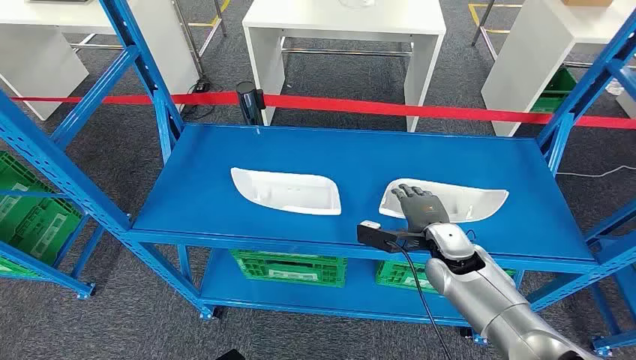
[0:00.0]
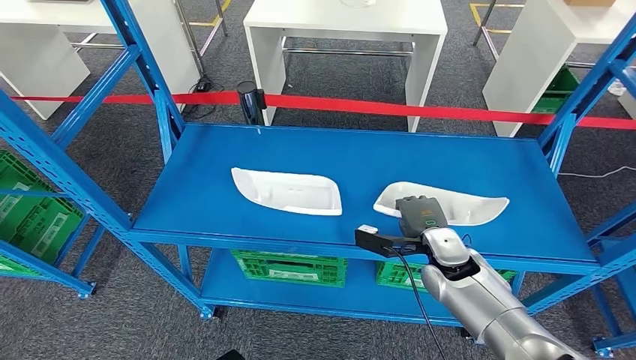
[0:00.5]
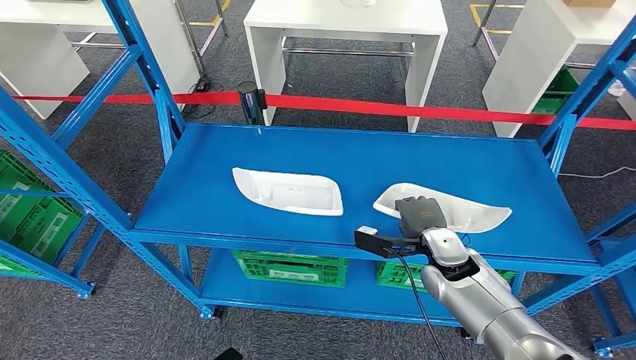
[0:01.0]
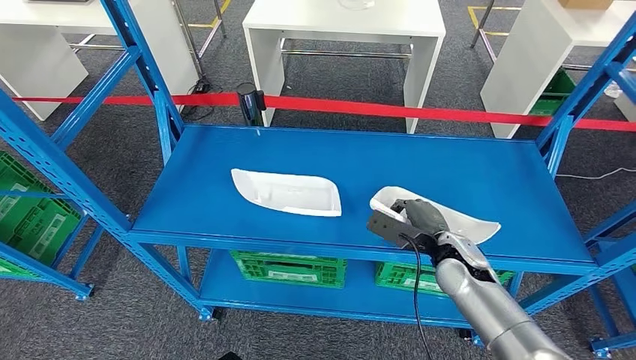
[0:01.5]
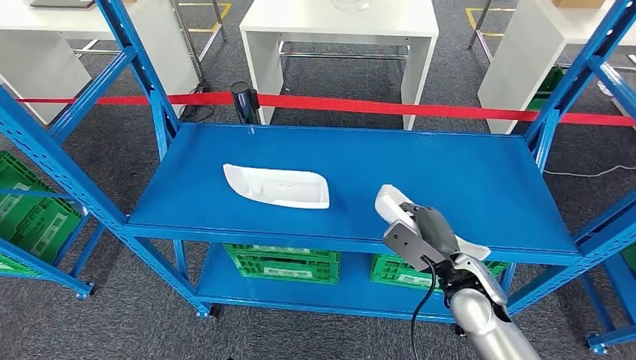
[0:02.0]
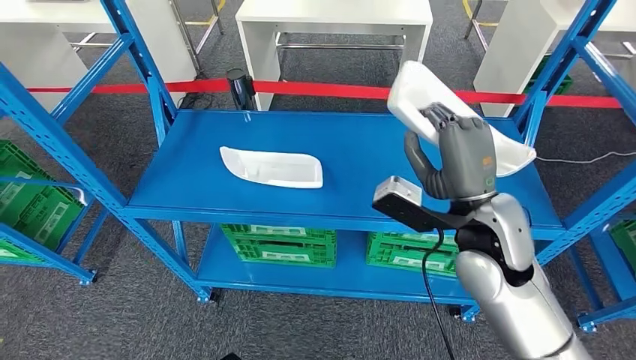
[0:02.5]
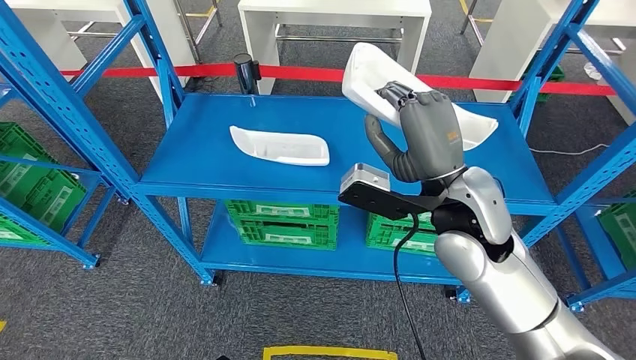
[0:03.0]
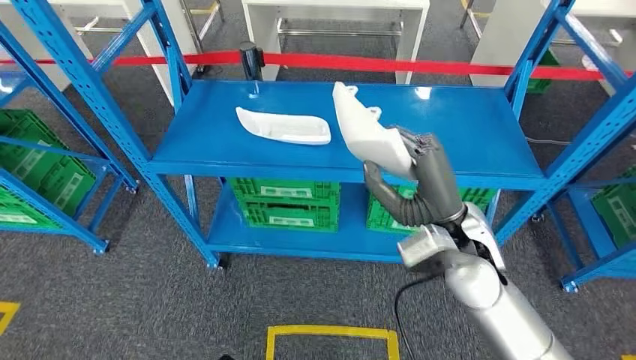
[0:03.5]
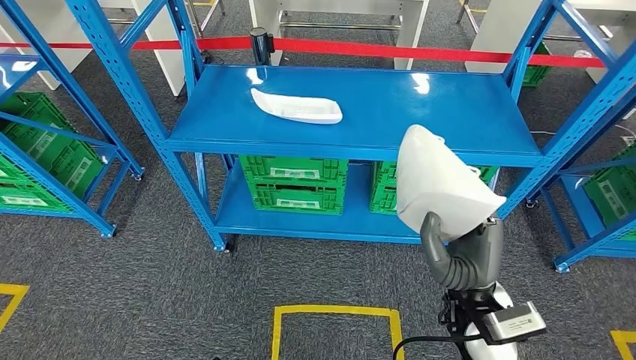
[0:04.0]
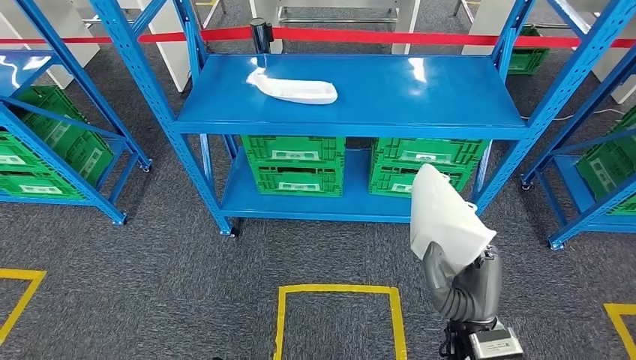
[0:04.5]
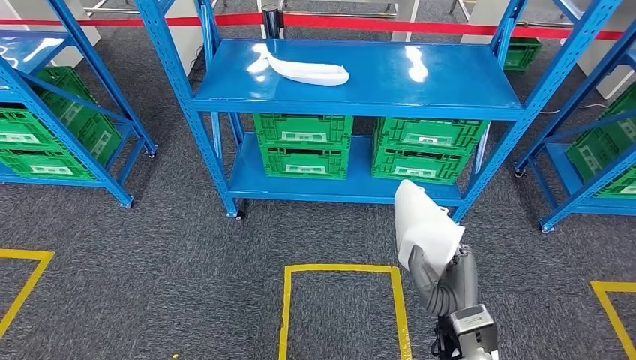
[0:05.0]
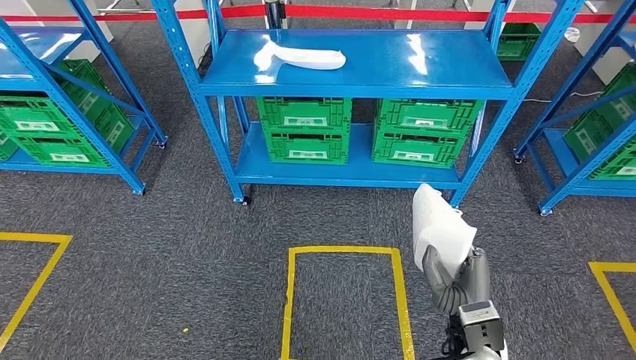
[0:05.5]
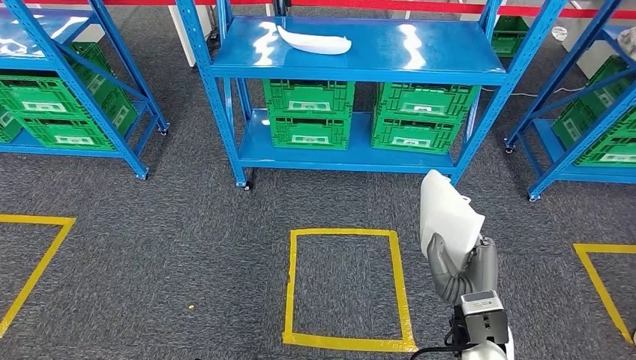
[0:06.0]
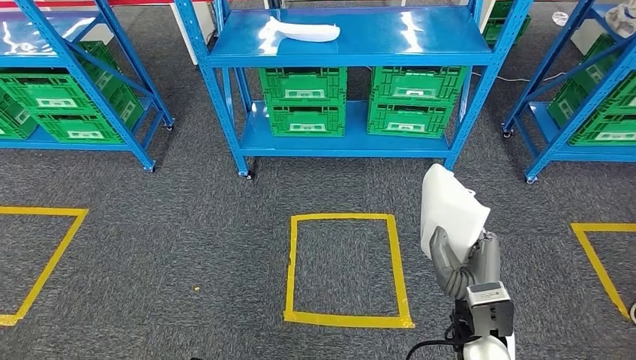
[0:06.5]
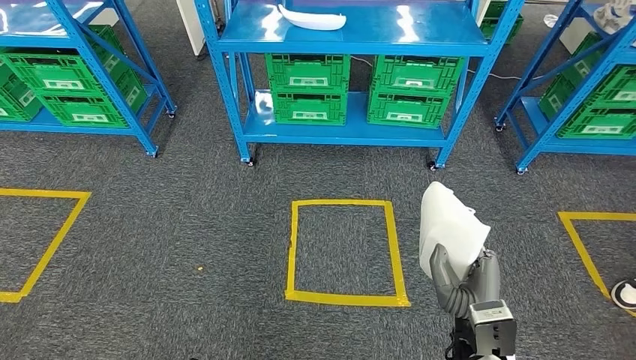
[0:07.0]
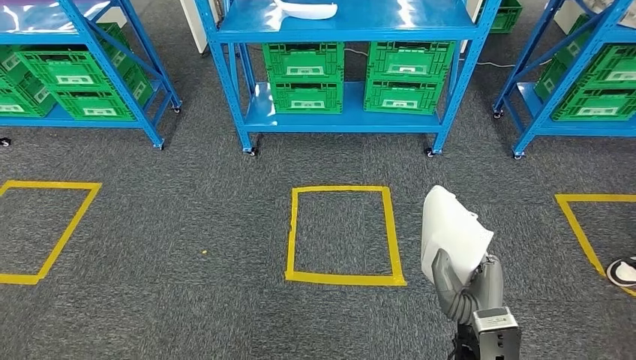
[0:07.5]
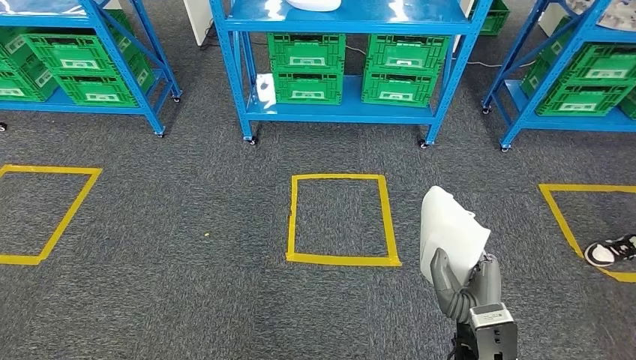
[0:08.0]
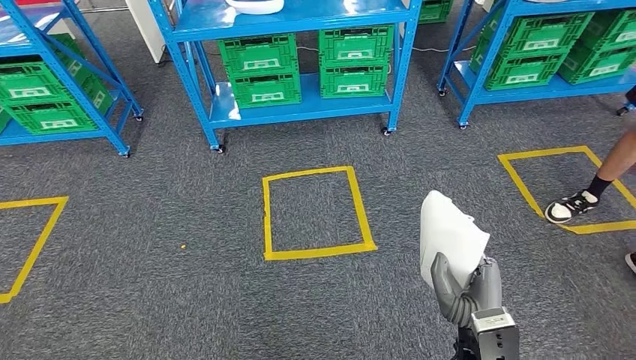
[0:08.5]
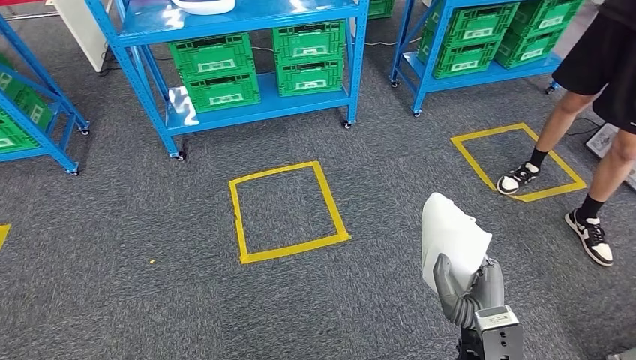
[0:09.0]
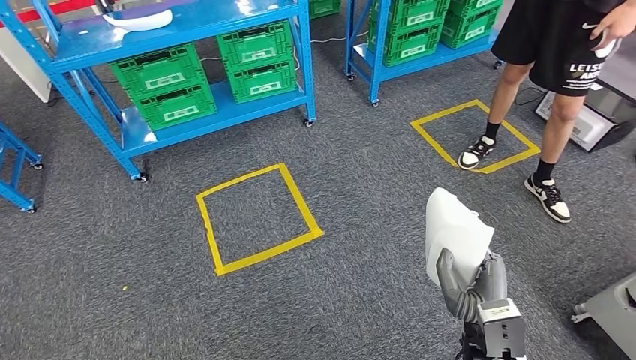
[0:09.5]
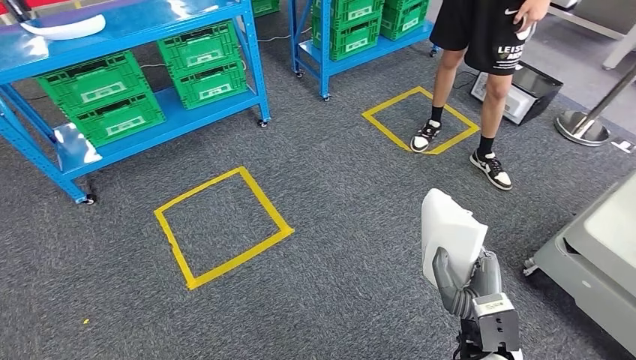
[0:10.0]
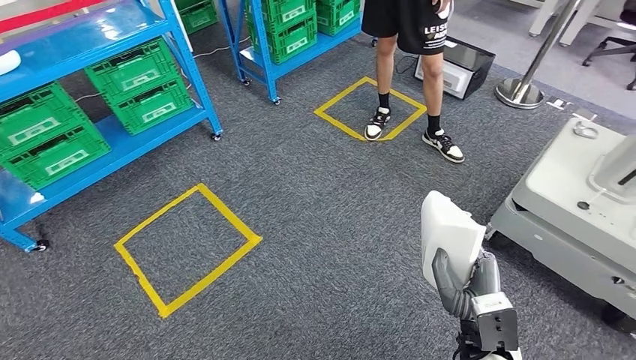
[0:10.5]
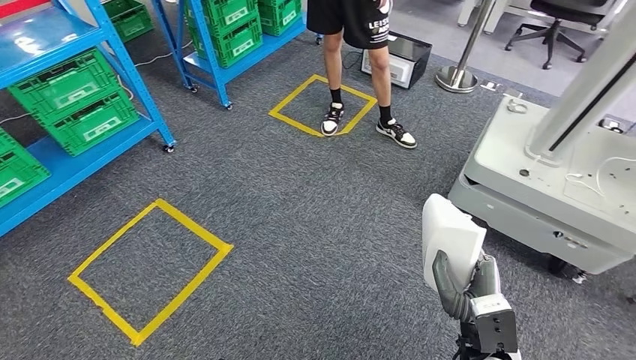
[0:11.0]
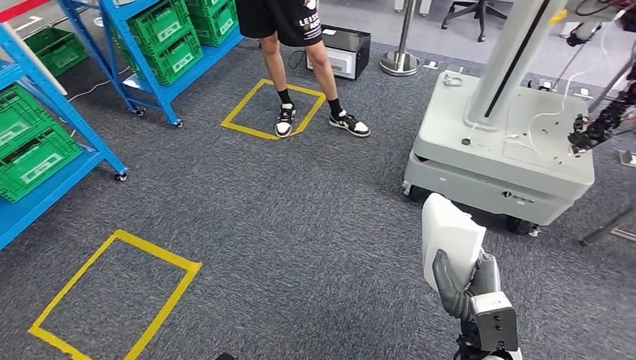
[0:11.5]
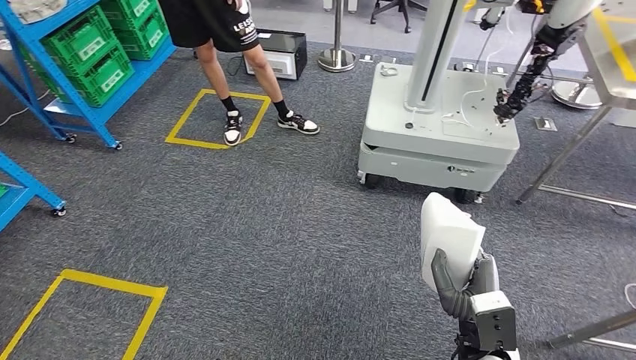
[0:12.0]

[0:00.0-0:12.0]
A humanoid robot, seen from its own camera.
Step, 0:00.0 to 0:03.0: Pick up the small component from the shelf.

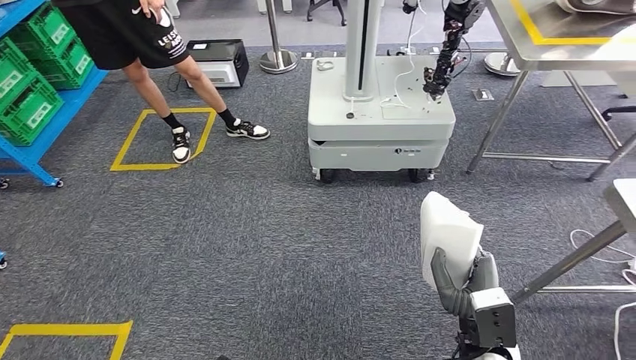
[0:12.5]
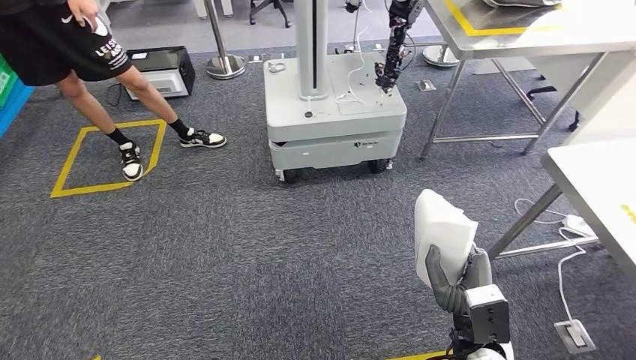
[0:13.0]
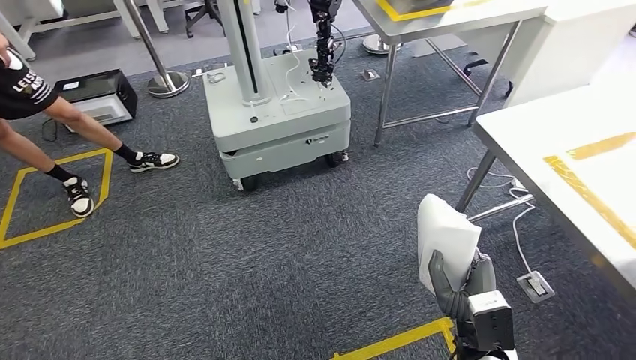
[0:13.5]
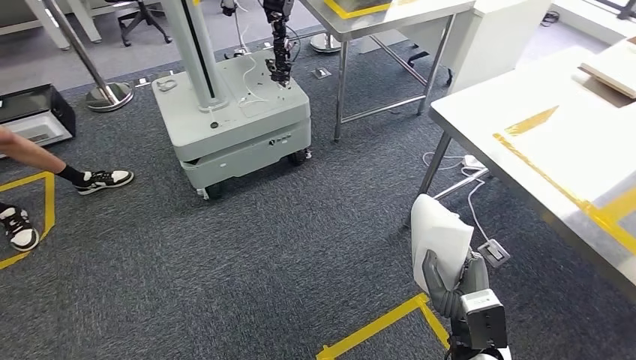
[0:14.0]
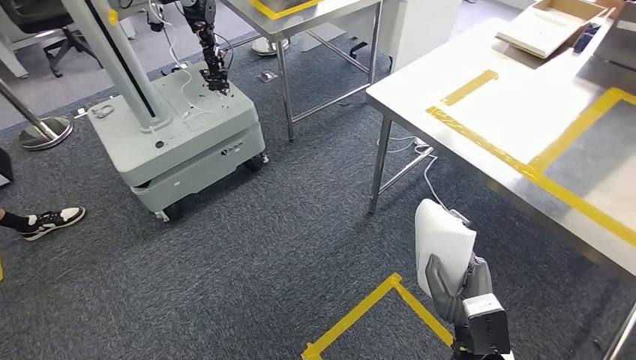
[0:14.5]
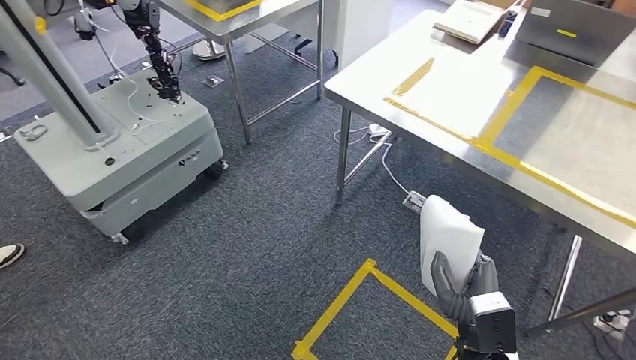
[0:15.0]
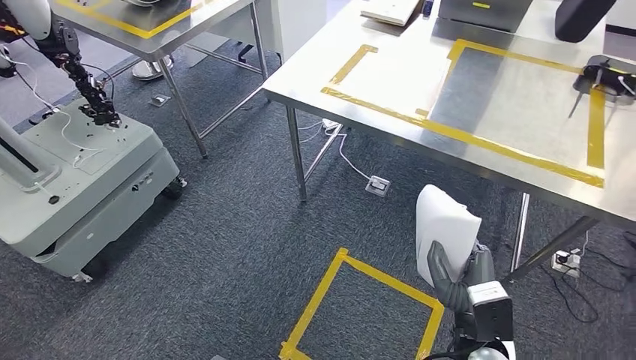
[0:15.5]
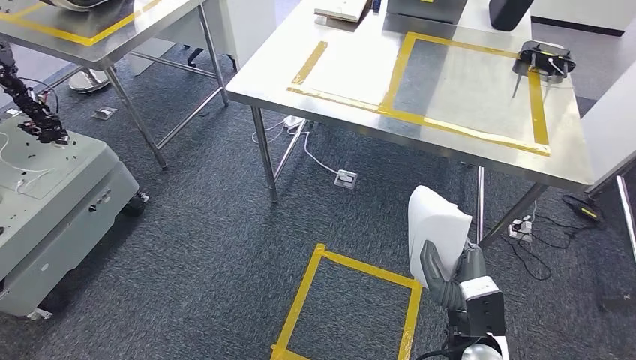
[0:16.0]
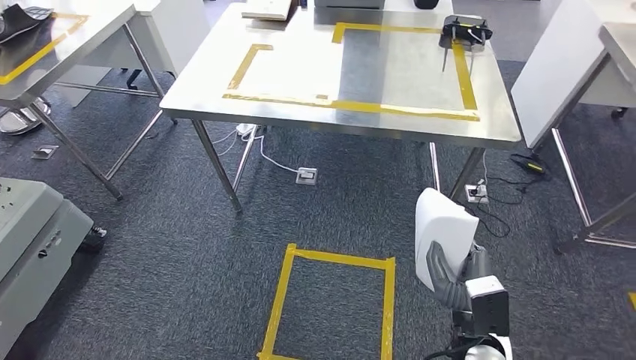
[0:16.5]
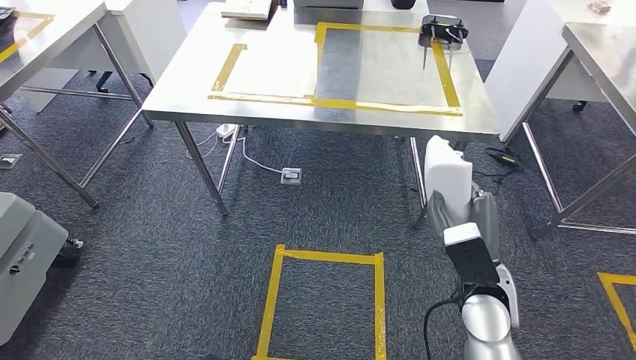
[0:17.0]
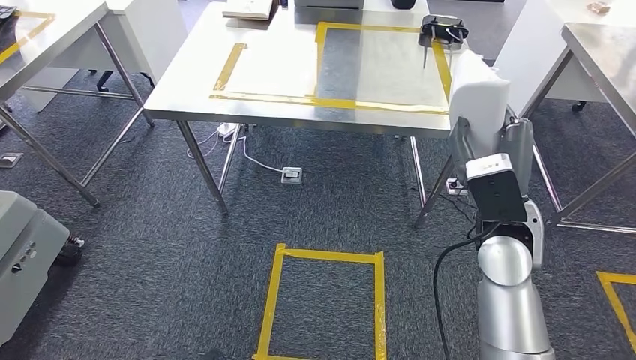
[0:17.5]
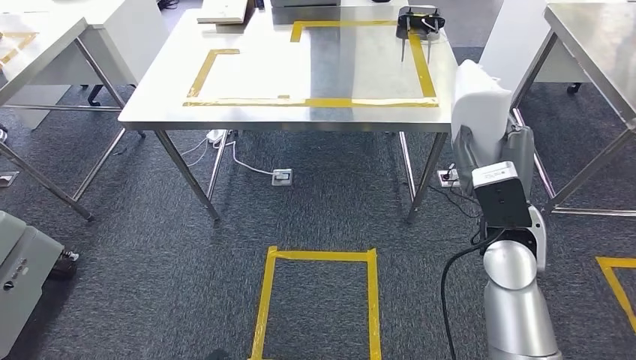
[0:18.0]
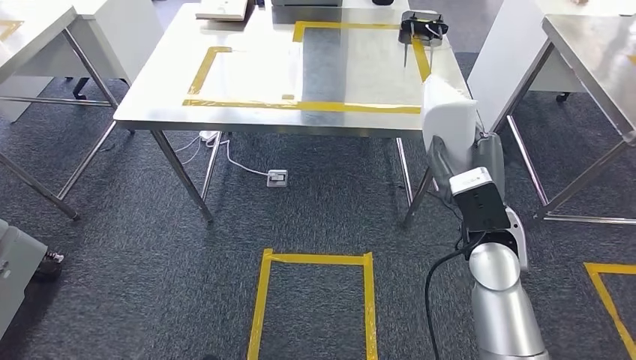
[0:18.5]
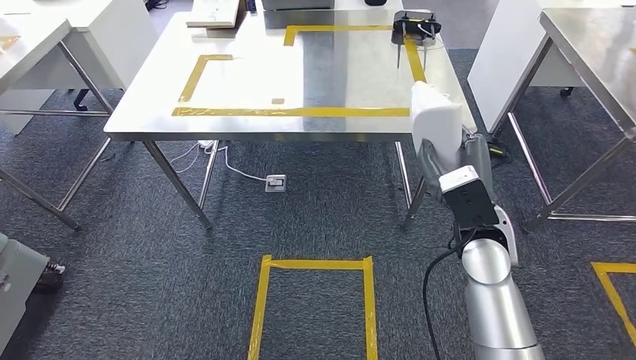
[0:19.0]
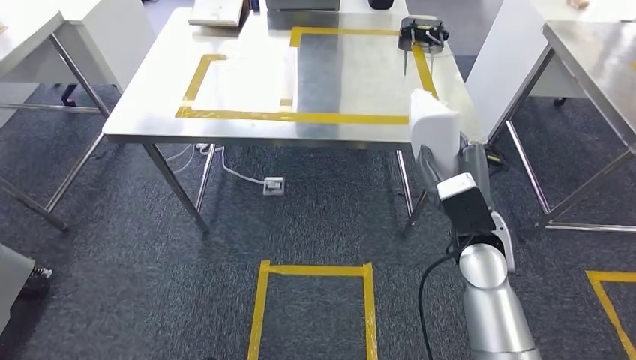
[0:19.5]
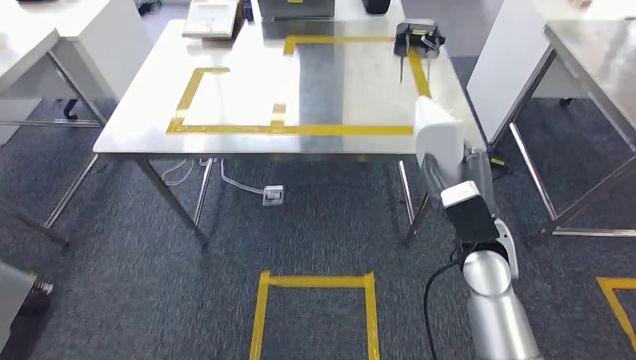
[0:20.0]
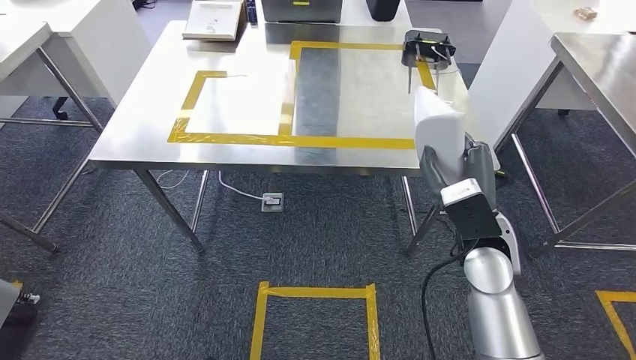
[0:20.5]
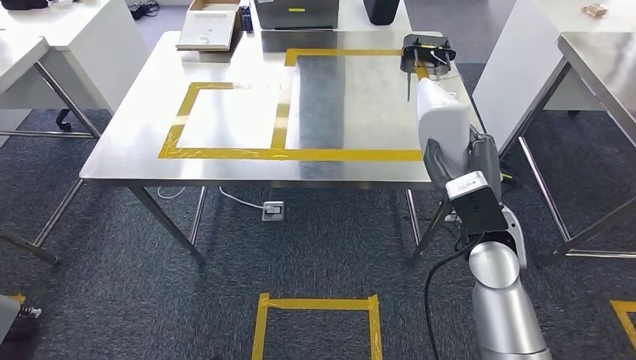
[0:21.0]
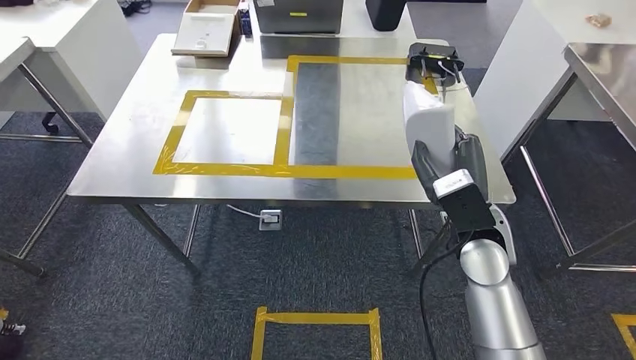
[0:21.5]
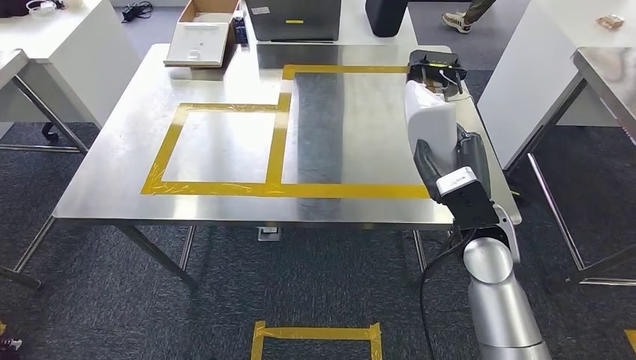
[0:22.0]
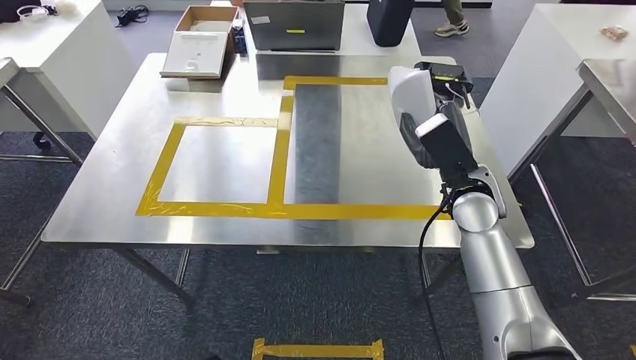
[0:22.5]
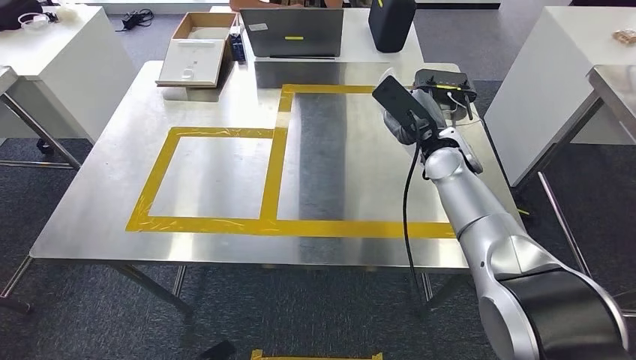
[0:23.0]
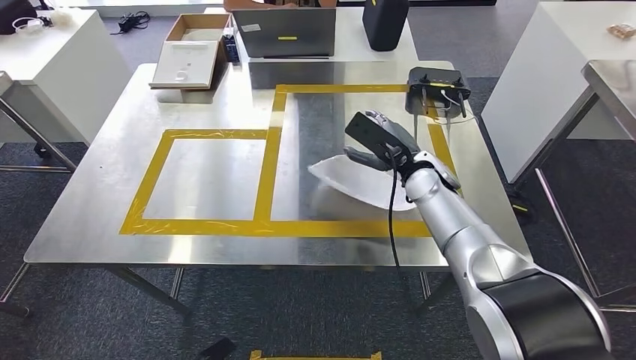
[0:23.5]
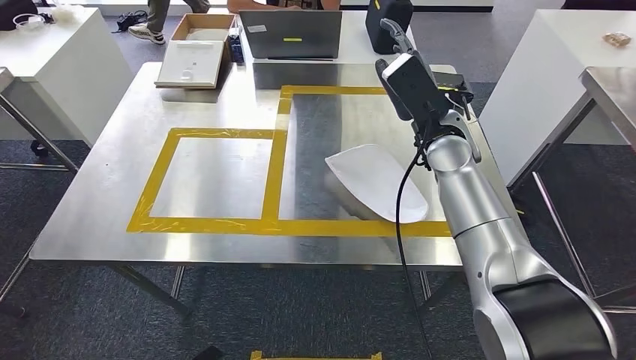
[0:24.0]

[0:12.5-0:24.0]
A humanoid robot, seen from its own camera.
Step, 0:12.5 to 0:15.0: Move the small component to the workbench.
